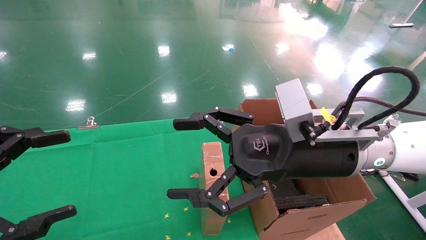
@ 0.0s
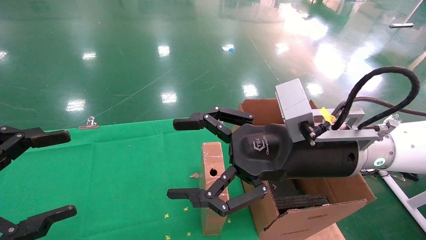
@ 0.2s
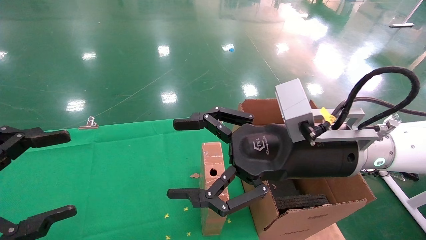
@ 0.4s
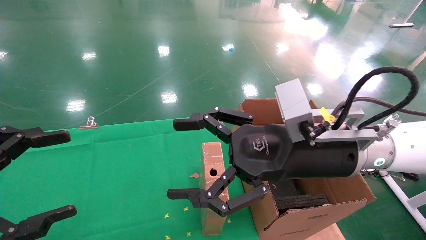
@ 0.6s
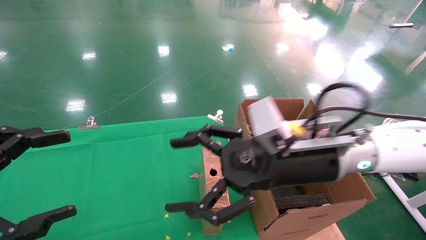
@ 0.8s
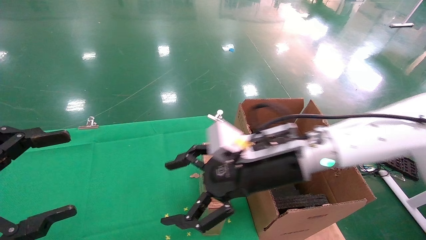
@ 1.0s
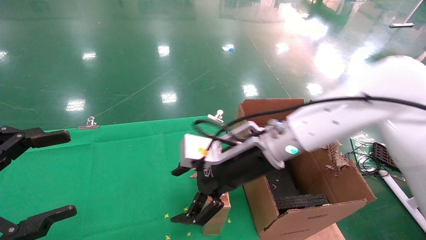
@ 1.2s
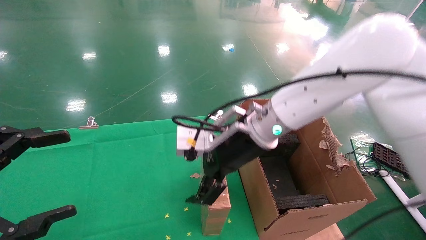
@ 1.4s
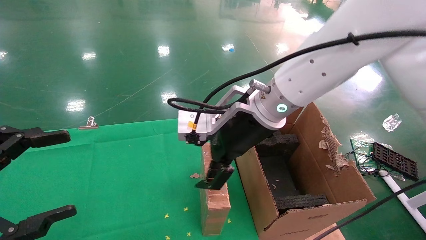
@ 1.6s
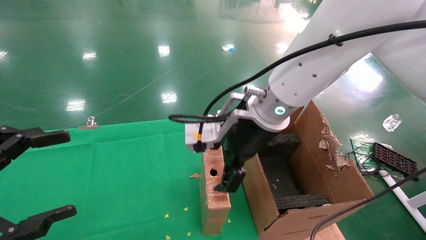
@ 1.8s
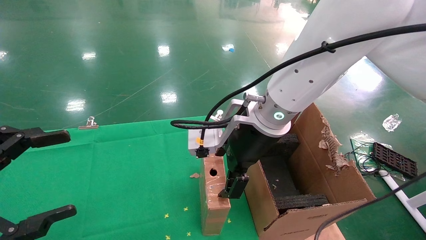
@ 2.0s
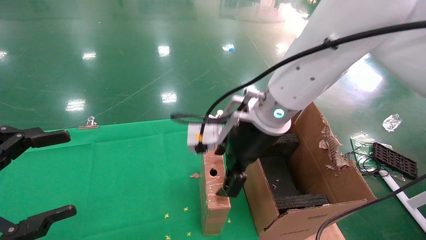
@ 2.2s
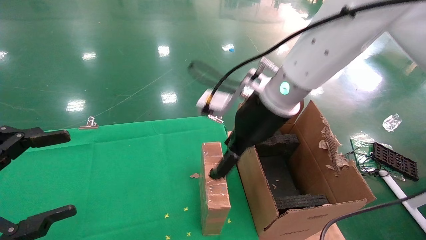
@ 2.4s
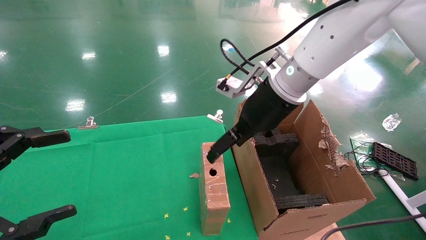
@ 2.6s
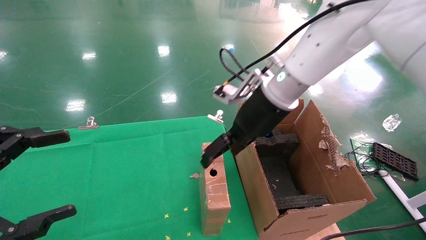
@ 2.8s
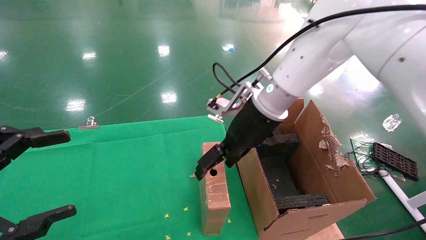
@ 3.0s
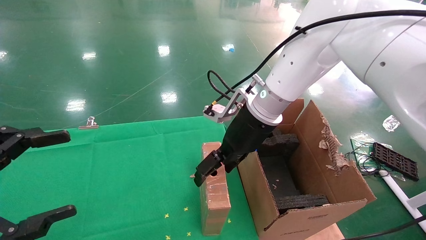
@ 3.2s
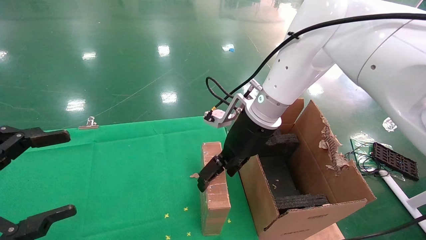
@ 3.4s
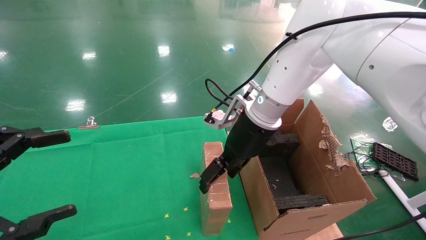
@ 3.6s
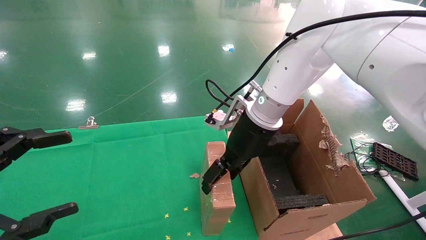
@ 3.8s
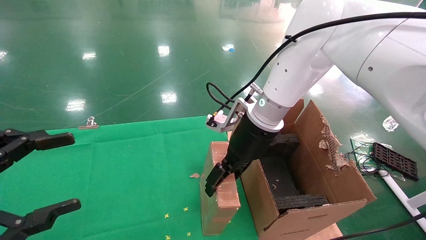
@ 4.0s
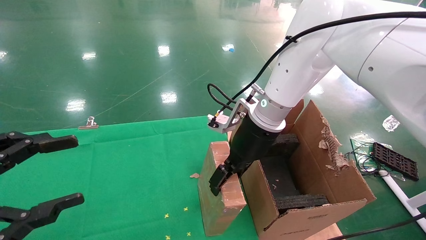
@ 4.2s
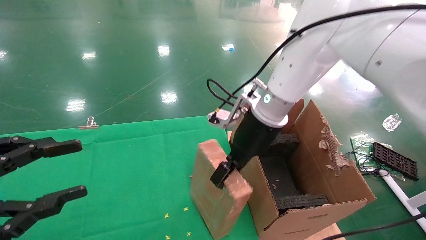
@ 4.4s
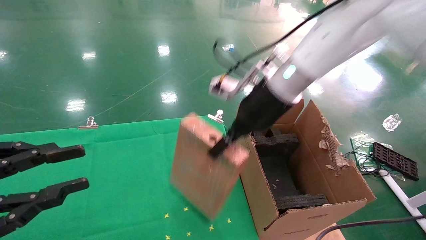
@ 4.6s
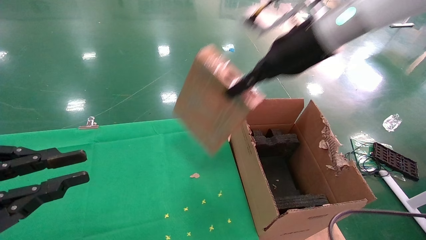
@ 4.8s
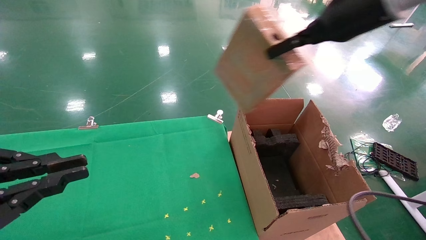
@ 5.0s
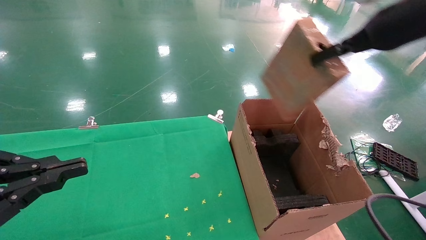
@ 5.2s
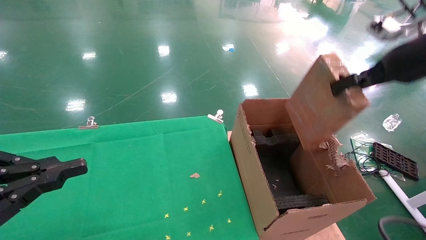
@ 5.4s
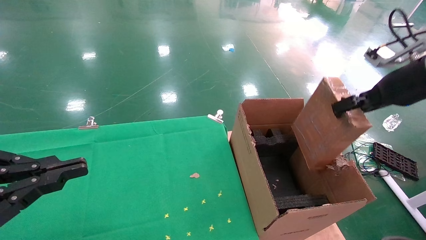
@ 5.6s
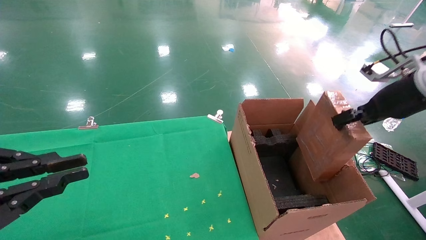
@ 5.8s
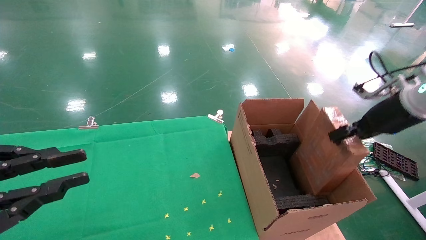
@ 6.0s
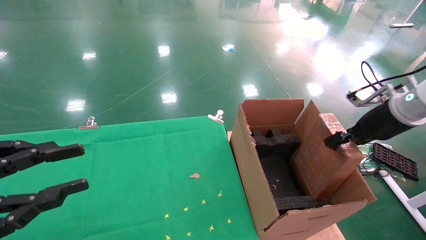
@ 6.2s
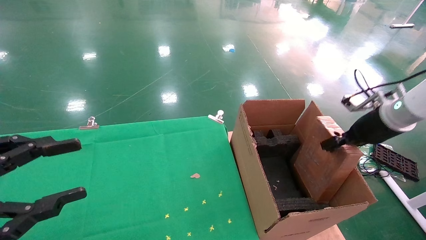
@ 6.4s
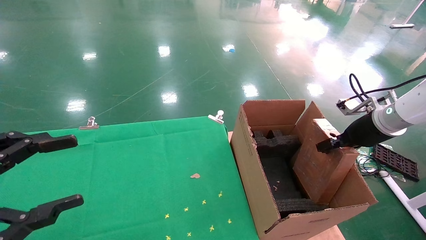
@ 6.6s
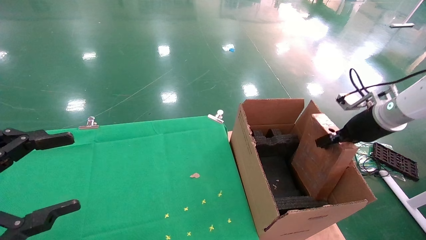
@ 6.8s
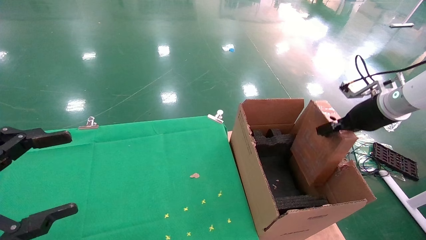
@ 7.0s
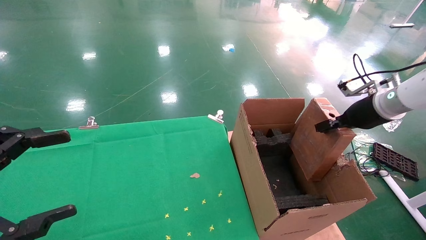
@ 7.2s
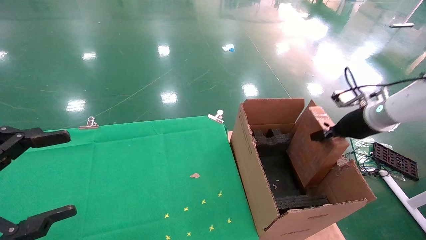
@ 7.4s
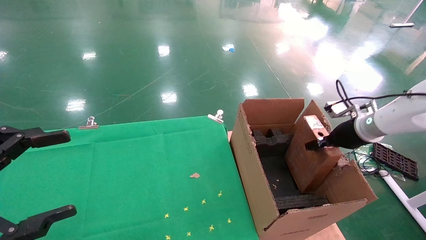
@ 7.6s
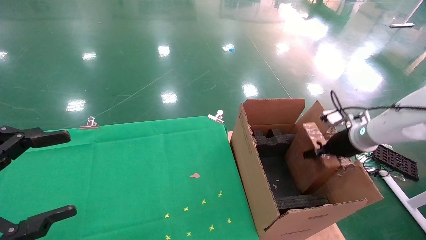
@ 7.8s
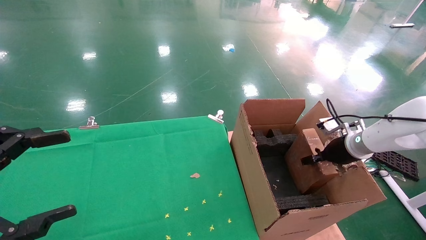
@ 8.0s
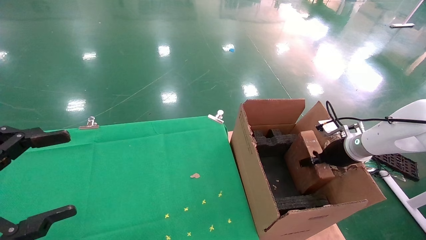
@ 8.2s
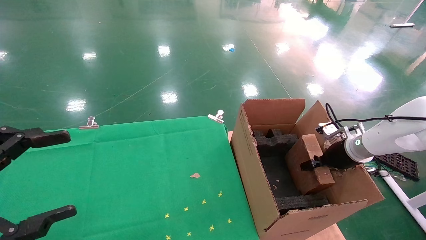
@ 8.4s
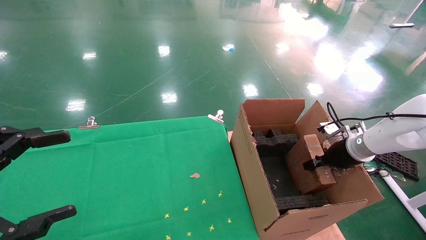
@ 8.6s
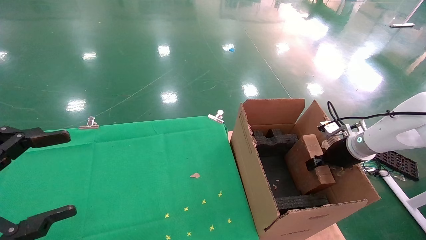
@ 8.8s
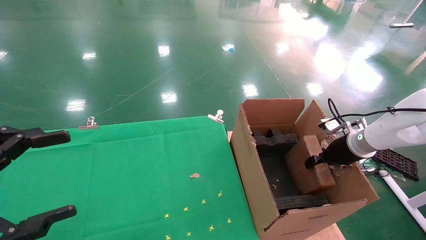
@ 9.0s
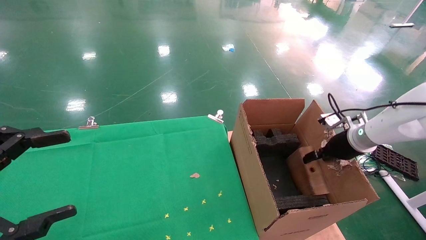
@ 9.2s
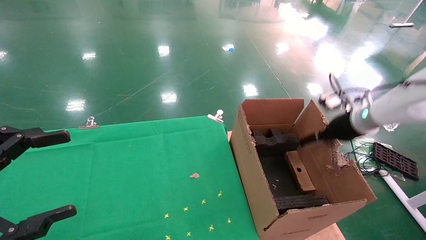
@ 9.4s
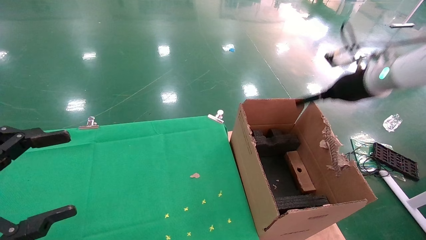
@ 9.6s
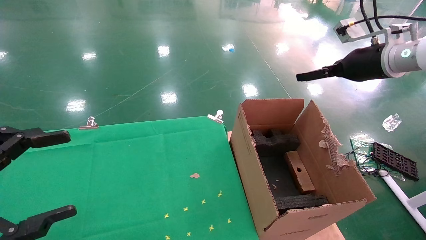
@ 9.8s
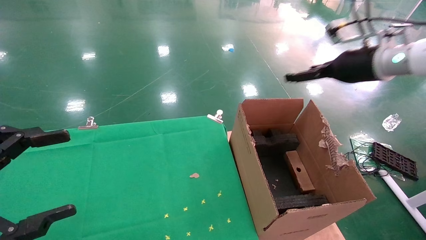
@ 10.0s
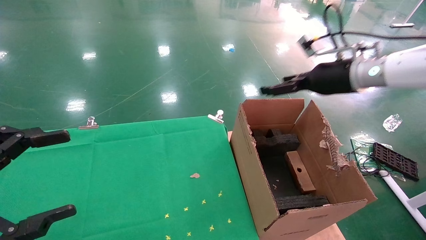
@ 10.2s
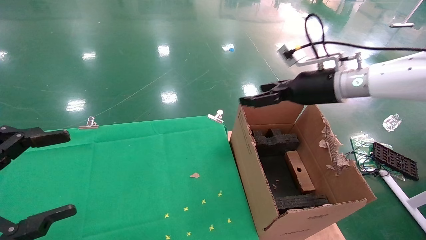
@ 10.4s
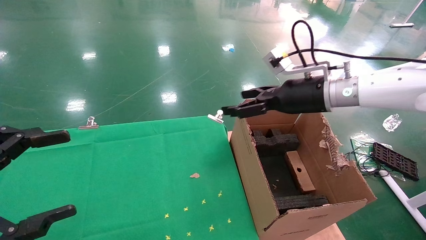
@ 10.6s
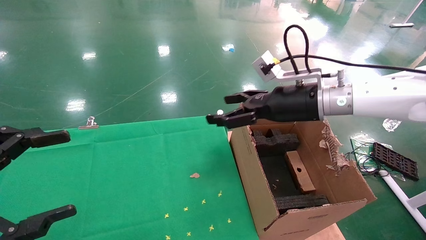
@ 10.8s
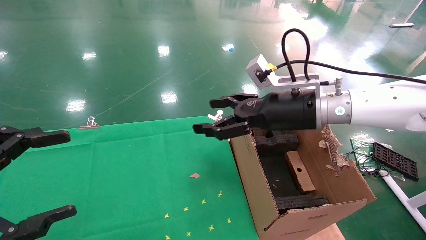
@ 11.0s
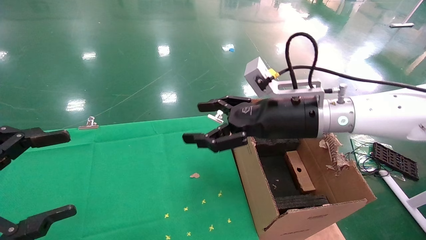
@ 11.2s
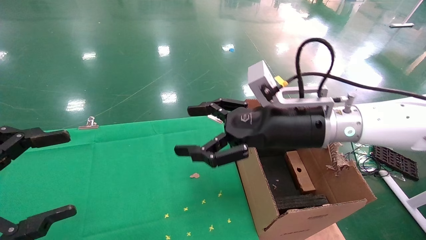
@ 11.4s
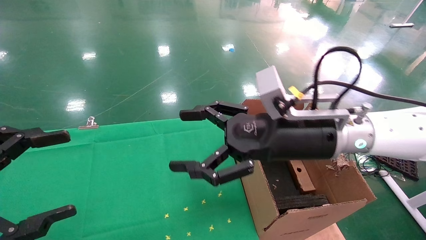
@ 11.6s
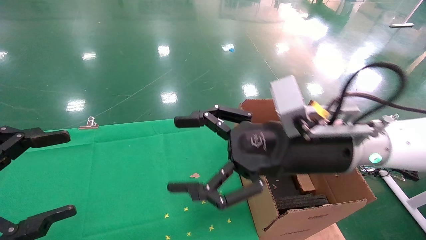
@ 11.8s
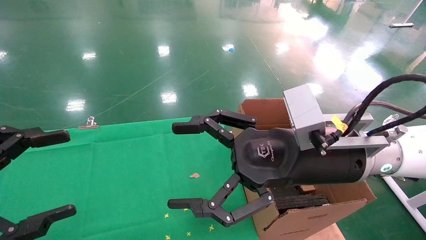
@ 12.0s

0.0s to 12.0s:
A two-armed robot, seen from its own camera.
Task of the whole recording: using a robotic arm to pick up a cardboard box and palace it the carton.
Step, 0.8s to 4.4s: Pick up the mouse and the power cord paper box.
Step, 4.6s to 9.4s: Place the mouse and the power cord paper box into the container.
0.0s to 1.6s: The right gripper travels forward and to the left by about 10 cm.
1.6s to 3.0s: The right gripper heads forward, covering about 5 cm.
3.0s to 4.4s: The right gripper closes up. The left gripper closes up.
4.4s to 6.0s: The left gripper closes up, while the right gripper heads to the right, covering approximately 30 cm.
6.0s to 7.6s: The left gripper opens up. Meanwhile the right gripper shifts roughly 10 cm downward and forward.
7.6s to 9.0s: The grippers make only small movements.
9.0s to 10.4s: The right gripper heads upward and to the left, covering about 20 cm, and opens.
10.4s to 12.0s: The right gripper moves backward and to the left, some 20 cm.

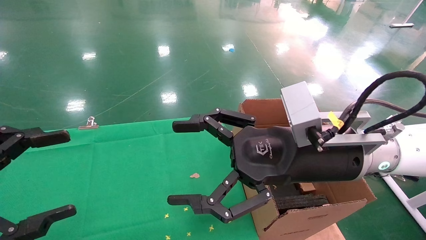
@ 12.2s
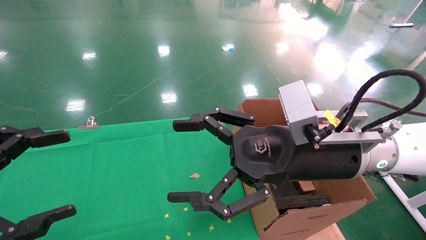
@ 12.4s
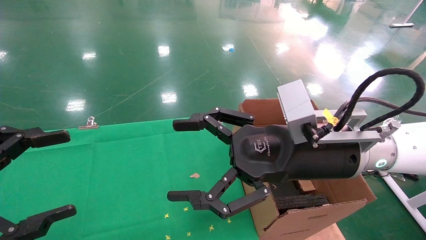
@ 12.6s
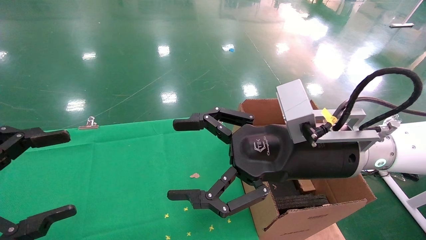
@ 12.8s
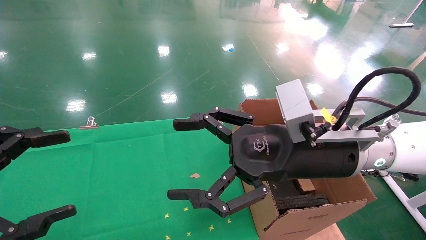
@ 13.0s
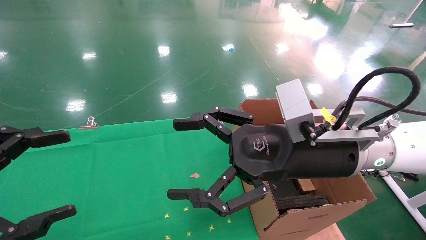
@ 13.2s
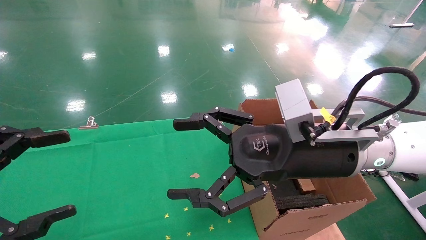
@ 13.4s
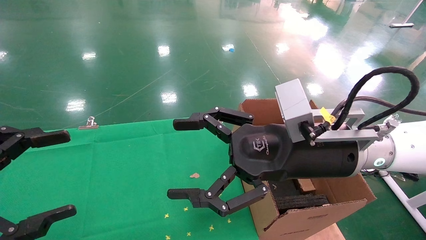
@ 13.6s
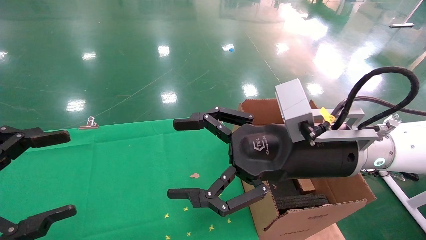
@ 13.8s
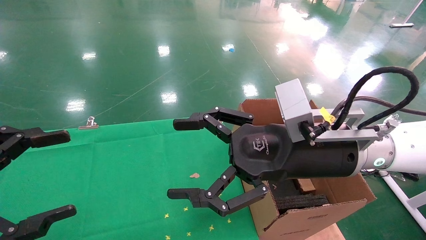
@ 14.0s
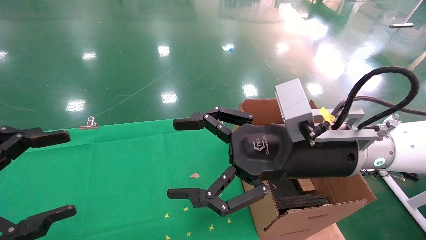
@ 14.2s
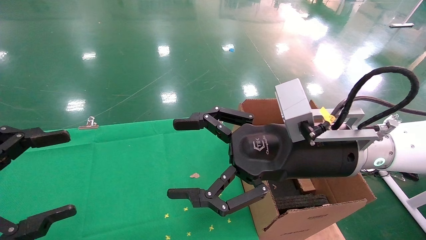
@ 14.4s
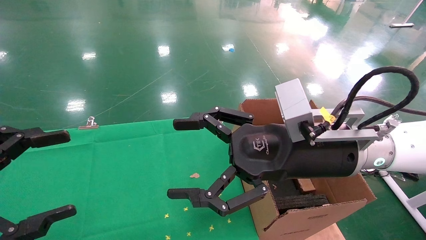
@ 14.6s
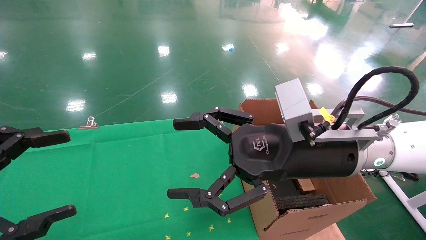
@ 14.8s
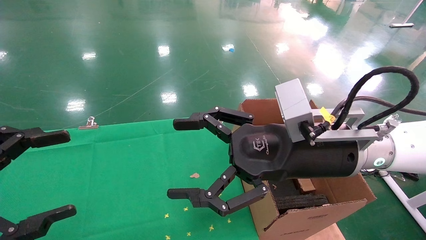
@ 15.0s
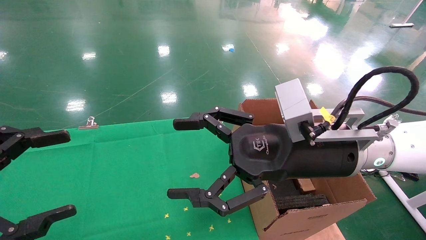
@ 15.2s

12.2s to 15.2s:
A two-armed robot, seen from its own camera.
Task of the whole recording: using a robotic arm to pick up a cardboard box and palace it the carton.
12.2s to 15.2s: Neither gripper changes place.

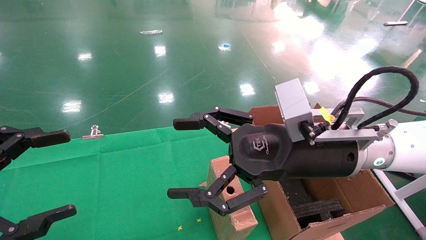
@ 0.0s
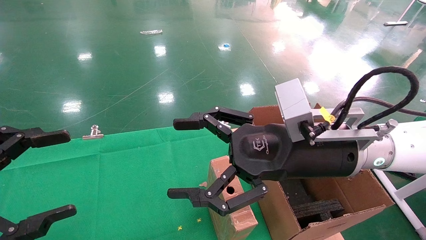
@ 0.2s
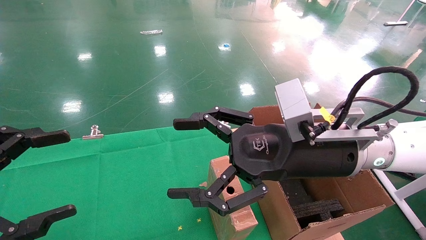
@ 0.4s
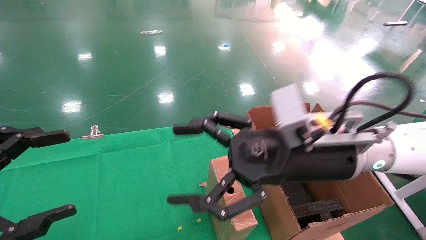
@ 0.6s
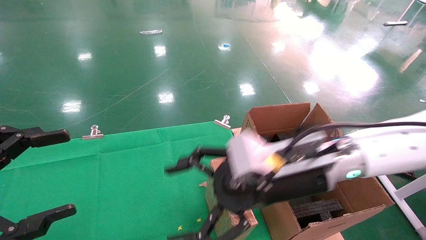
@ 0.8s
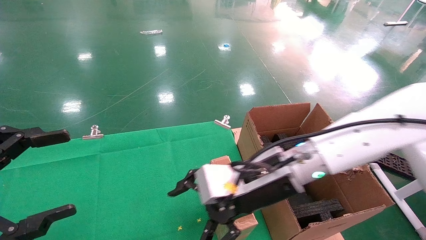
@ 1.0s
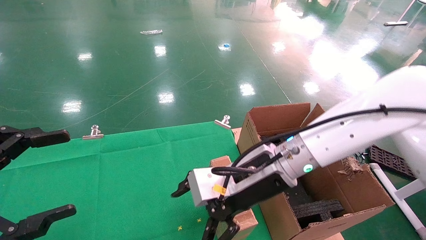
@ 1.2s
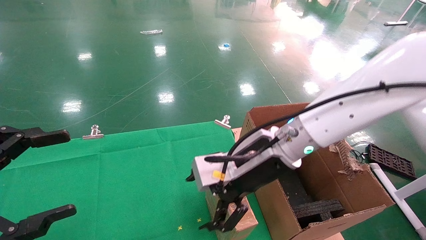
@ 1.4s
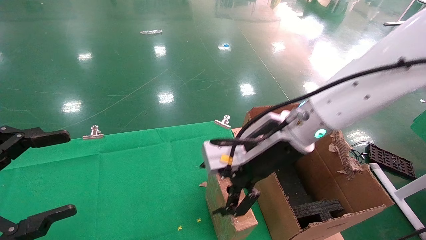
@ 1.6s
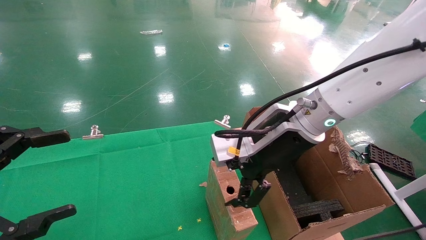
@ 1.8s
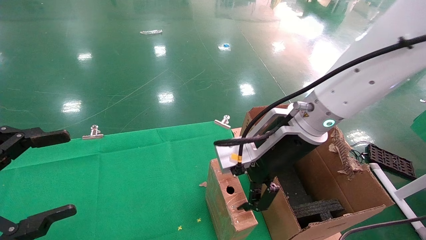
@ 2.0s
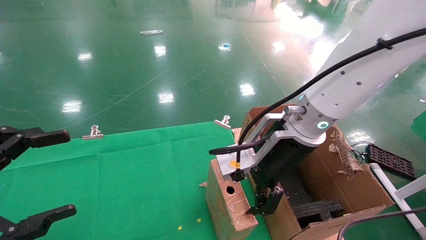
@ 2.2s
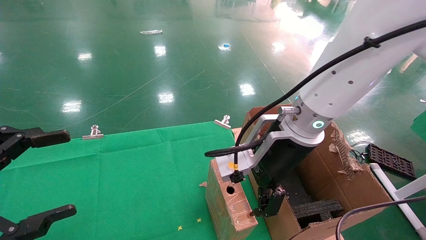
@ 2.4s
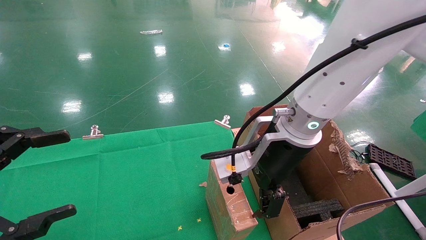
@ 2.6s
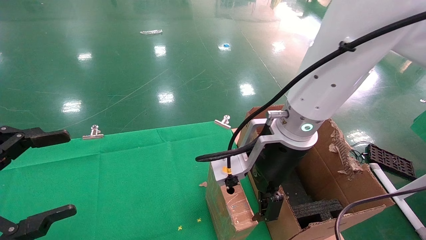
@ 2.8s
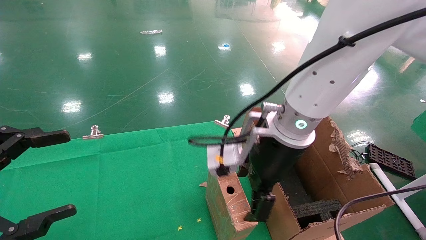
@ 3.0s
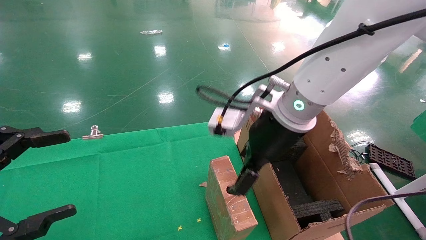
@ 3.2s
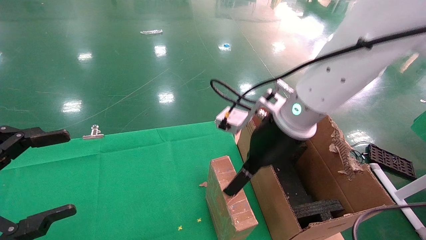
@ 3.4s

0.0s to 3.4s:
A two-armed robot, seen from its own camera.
Task of the whole recording: using a robotic arm to pick up a cardboard box and palace it the carton.
0.0s to 1.6s: The right gripper heads forward, covering about 5 cm.
